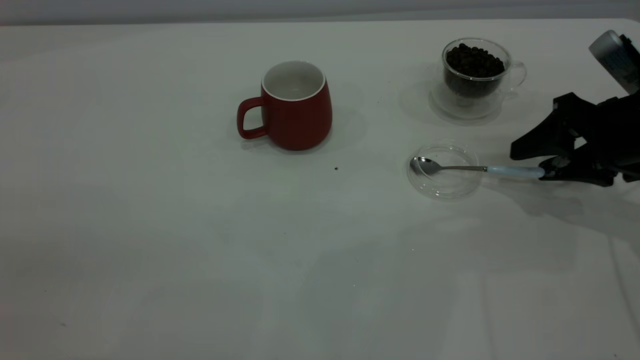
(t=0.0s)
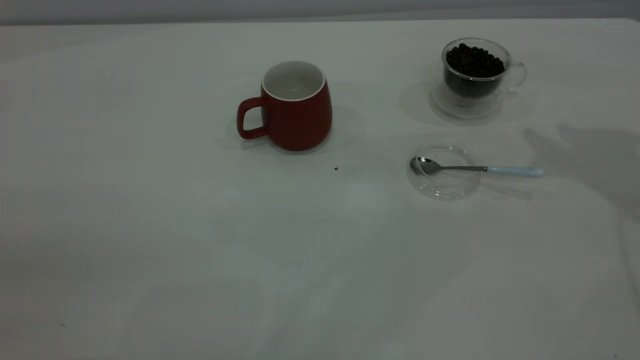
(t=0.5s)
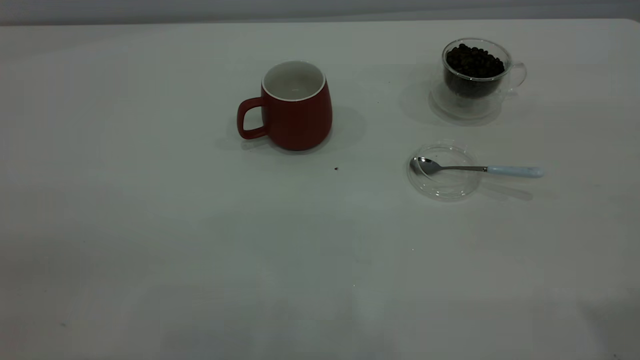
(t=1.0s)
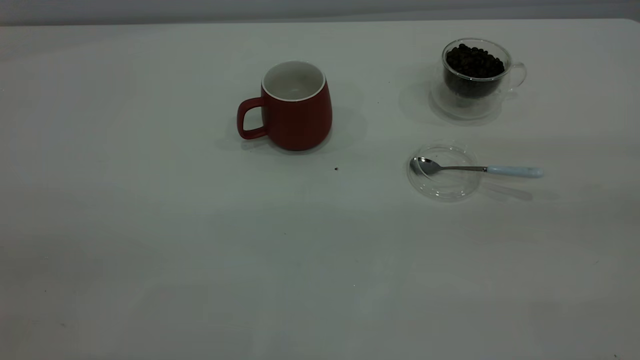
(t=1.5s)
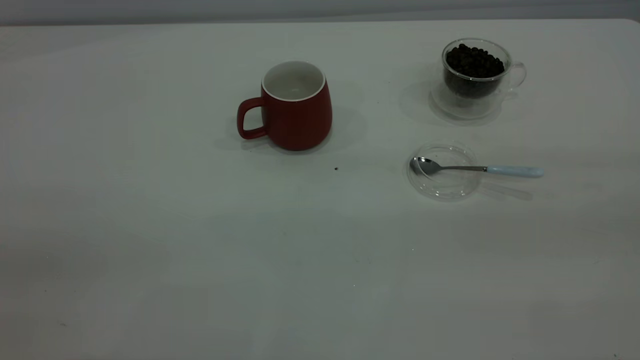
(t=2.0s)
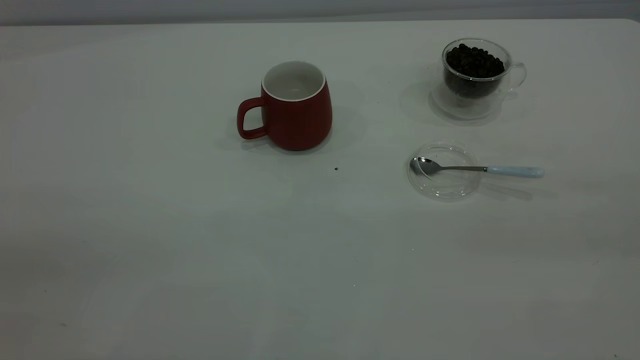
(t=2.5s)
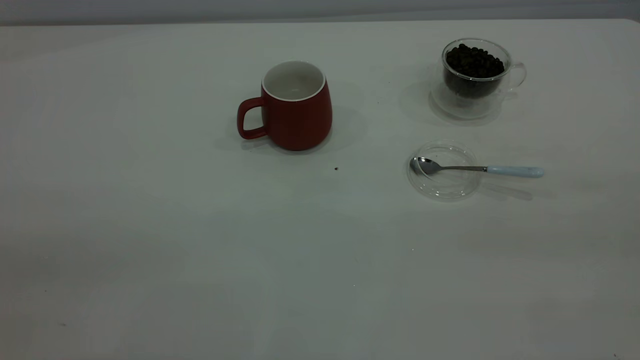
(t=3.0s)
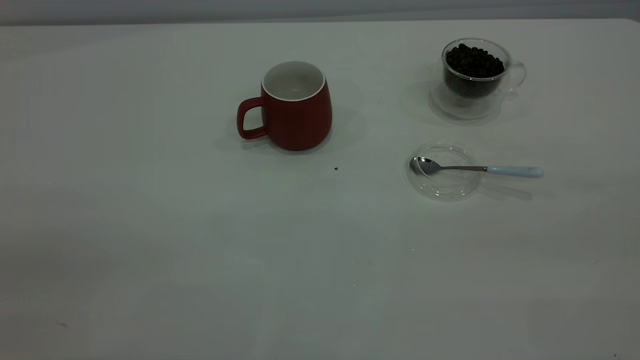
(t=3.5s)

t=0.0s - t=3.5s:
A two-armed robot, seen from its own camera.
Task of the whole recording: the left gripper place the red cup in the center of the table, the right gripper take the blue spoon from the cup lid and scoop out the coffee beans from the coffee cup and put them into the red cup, the right gripper put the spoon back into the cup lid.
t=0.0s - t=2.0s: The right gripper moves backward and upward, roughly 40 cm.

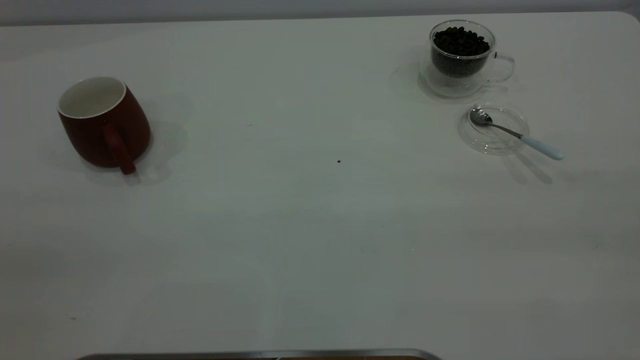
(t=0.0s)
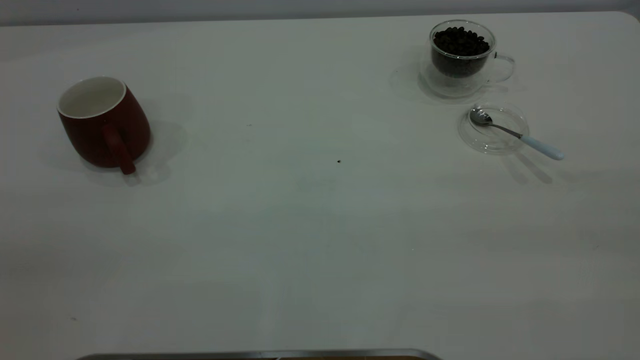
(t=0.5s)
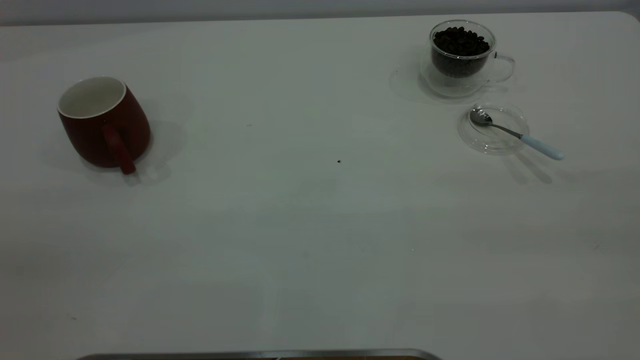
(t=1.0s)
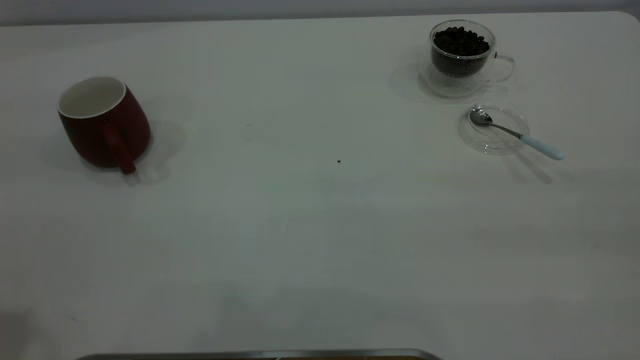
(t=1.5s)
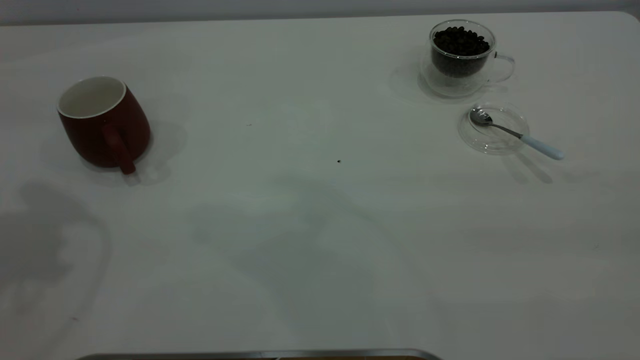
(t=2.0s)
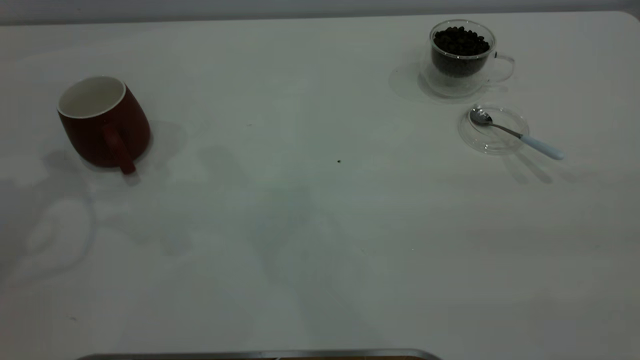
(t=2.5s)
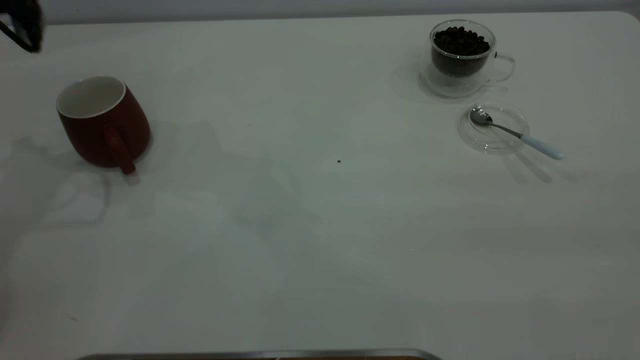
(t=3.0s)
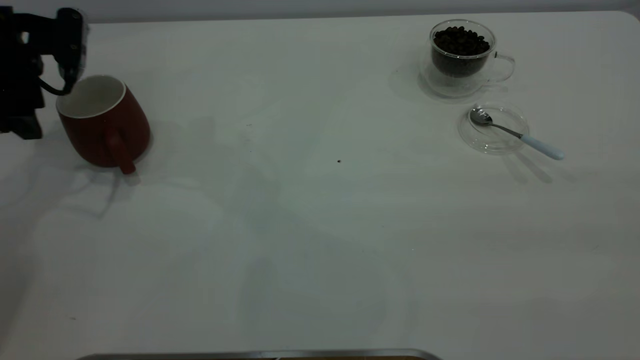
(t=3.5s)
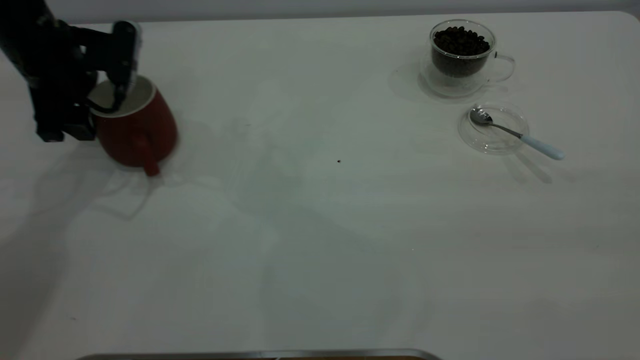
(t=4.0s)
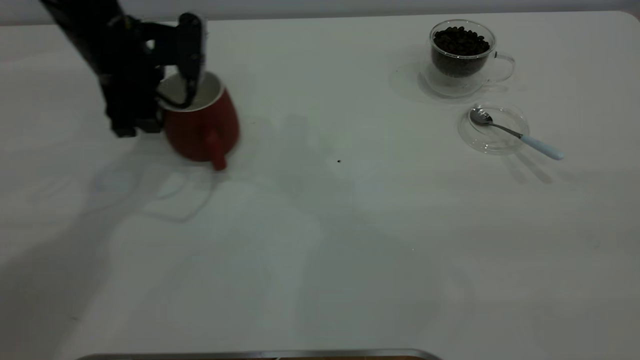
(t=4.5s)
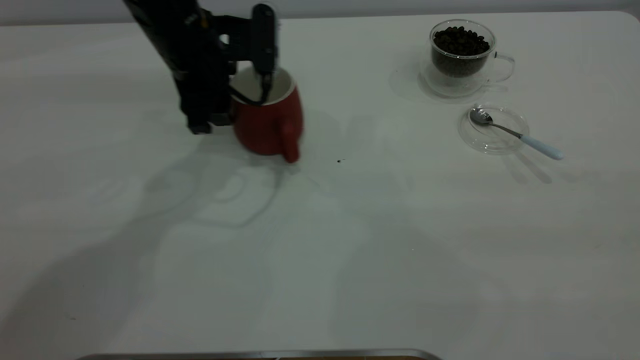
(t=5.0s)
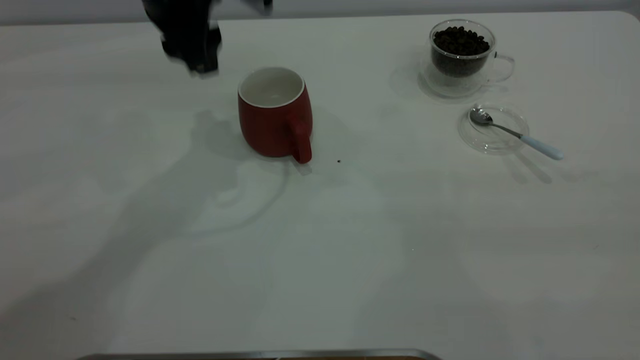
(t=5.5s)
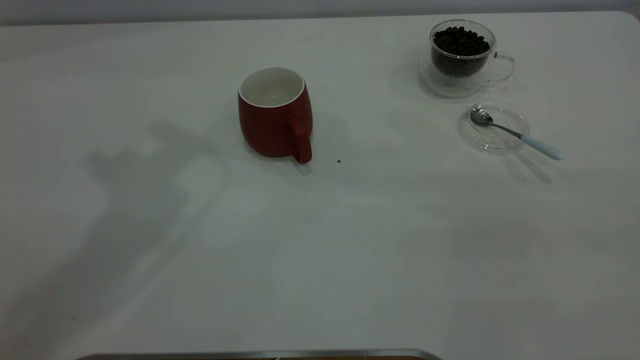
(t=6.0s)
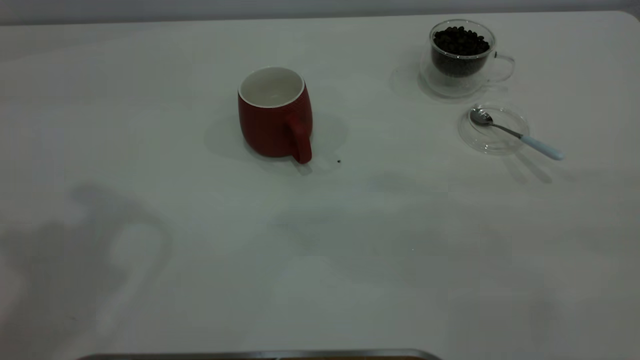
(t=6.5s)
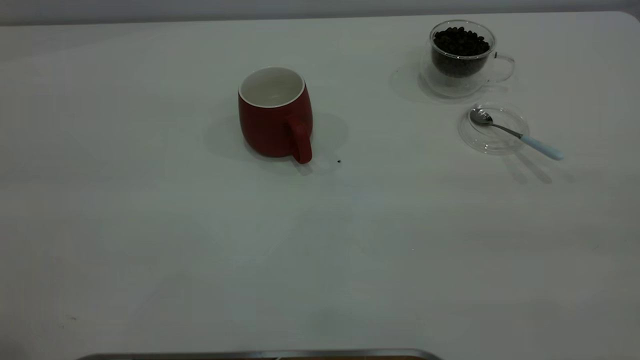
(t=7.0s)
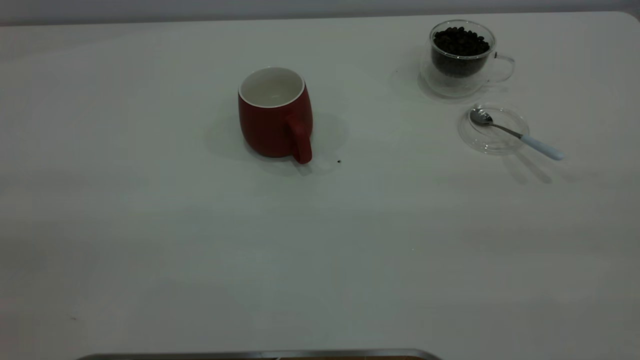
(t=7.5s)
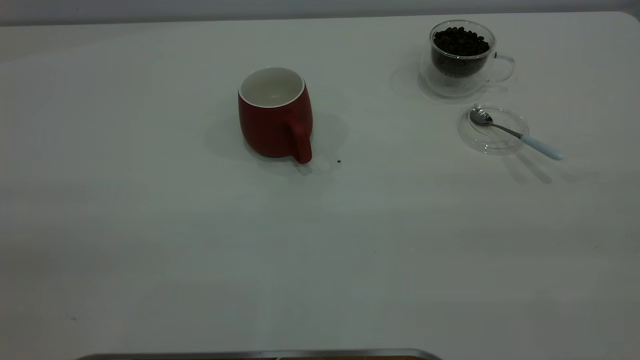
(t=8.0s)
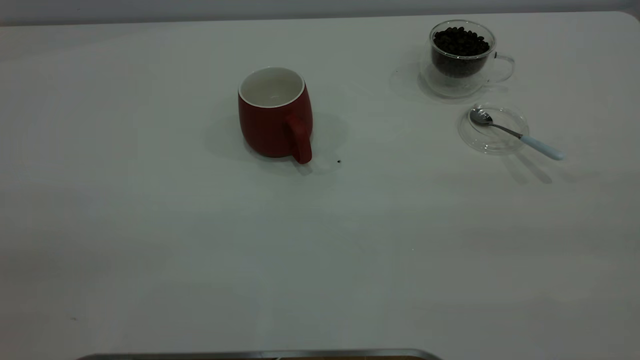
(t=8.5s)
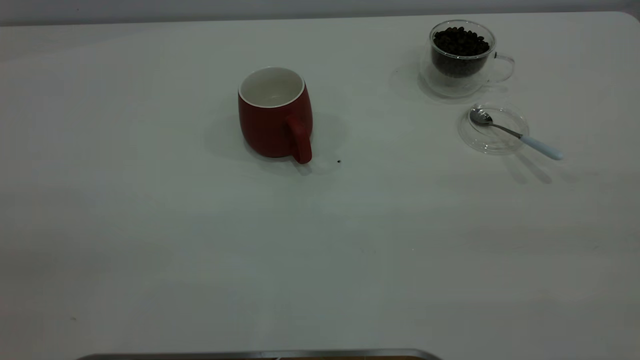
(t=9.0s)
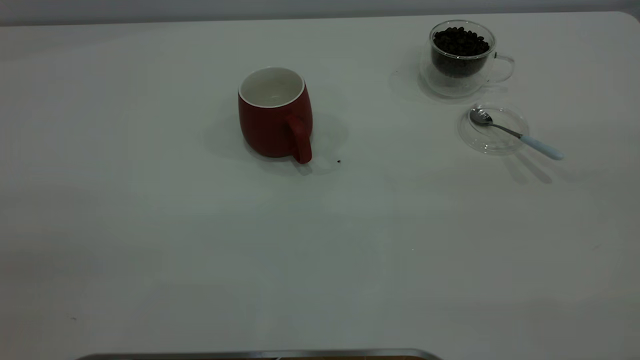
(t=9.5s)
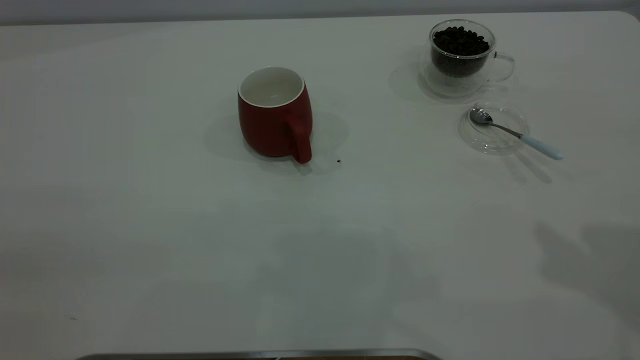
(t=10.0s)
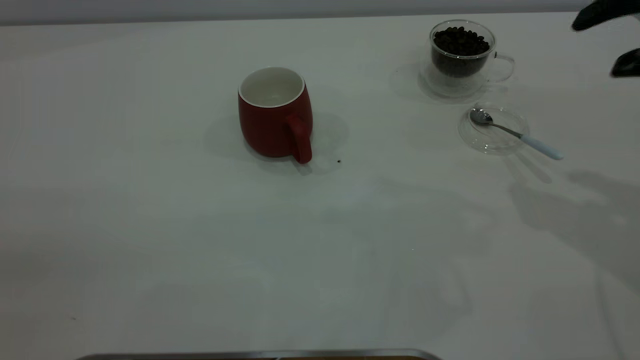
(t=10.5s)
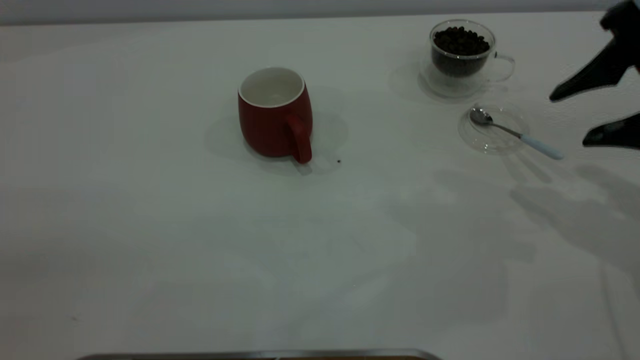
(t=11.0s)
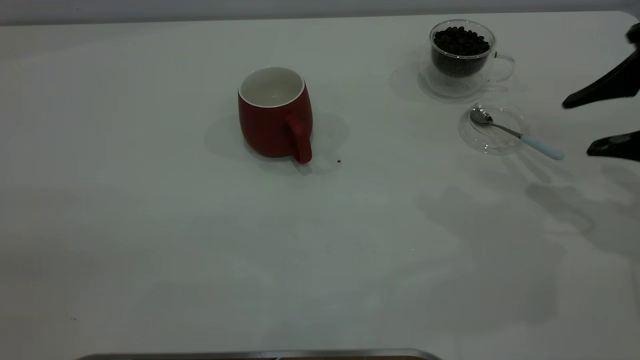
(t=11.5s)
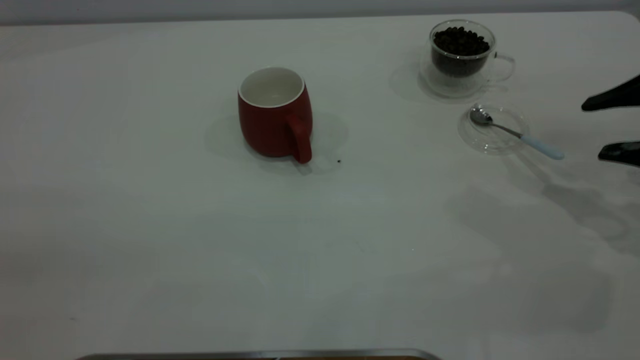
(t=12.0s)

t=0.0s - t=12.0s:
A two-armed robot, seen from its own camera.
Task of the whole recording: the left gripper place the red cup in the center of the table, the right gripper take the blue spoon from the cup lid and scoop out the coffee beans from the coffee cup and put them into the red cup, the right gripper put the spoon back into the cup lid.
Step, t=0.0s - t=5.0s: Move the cup to the center of view.
t=2.0s - t=4.0s: The left gripper travels downward and forward by some 25 cm.
t=4.0s - t=6.0s: The left gripper goes some 25 cm upward.
t=10.0s - t=12.0s: The right gripper heads downward, covering approximately 20 cm.

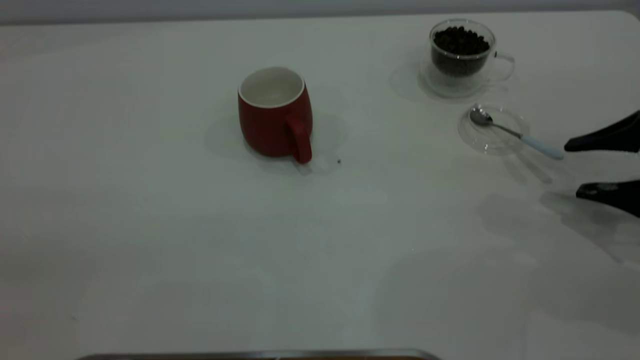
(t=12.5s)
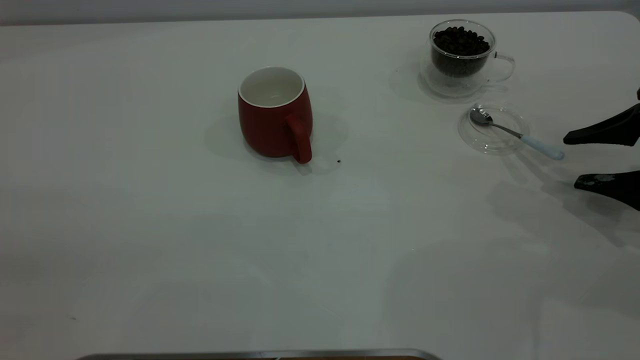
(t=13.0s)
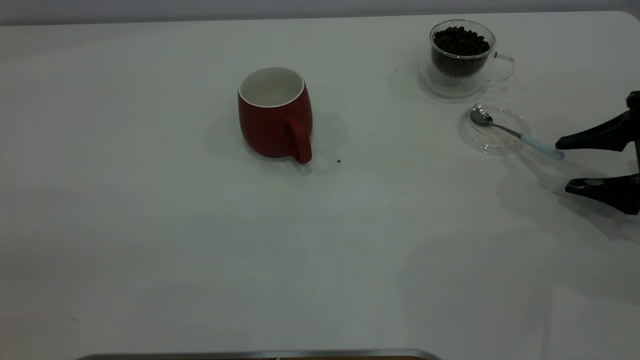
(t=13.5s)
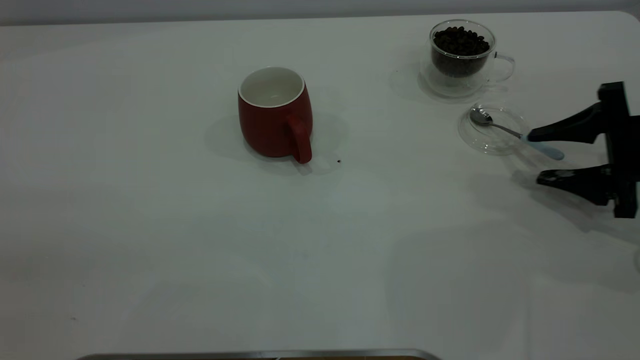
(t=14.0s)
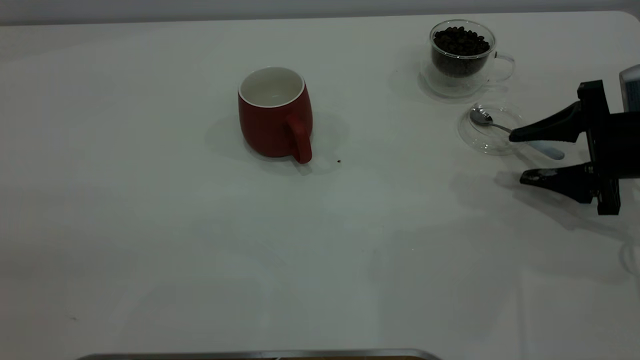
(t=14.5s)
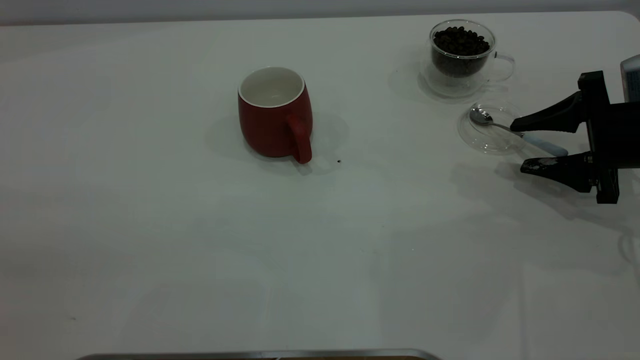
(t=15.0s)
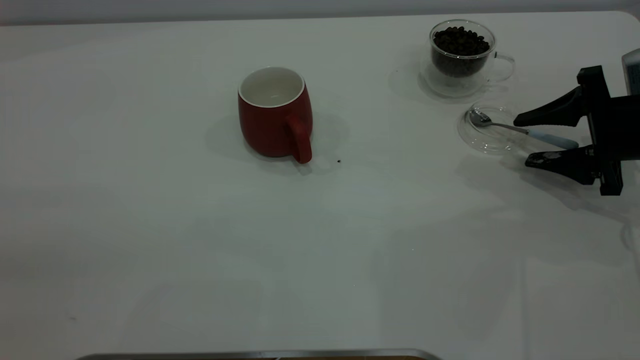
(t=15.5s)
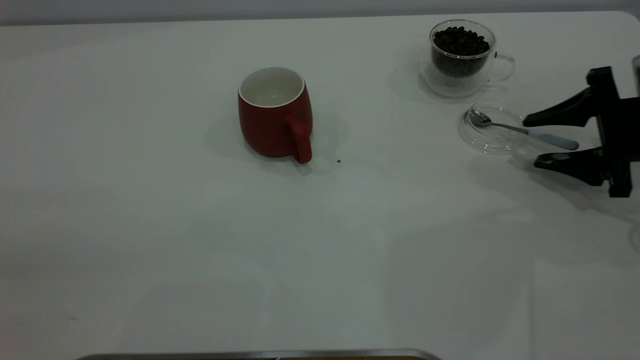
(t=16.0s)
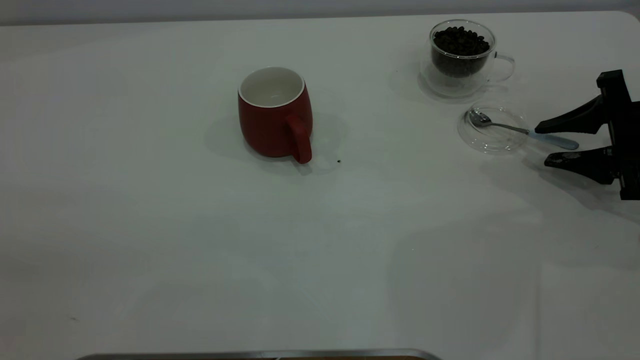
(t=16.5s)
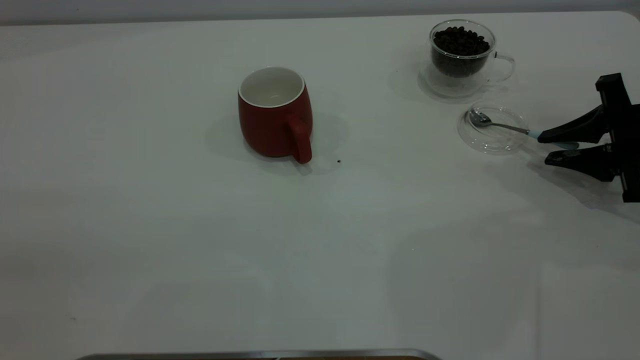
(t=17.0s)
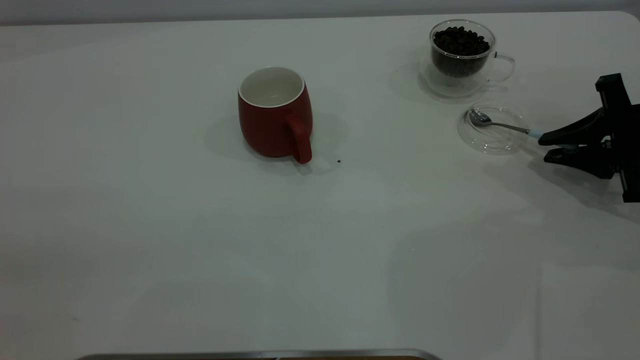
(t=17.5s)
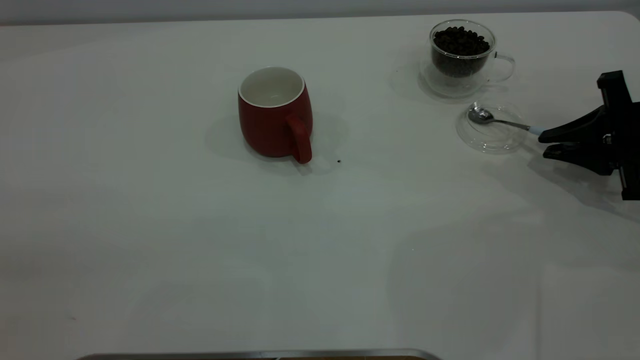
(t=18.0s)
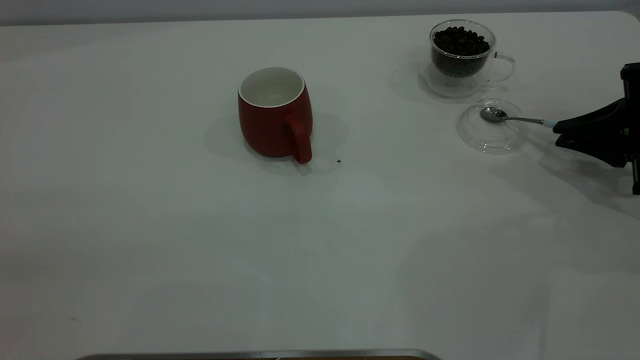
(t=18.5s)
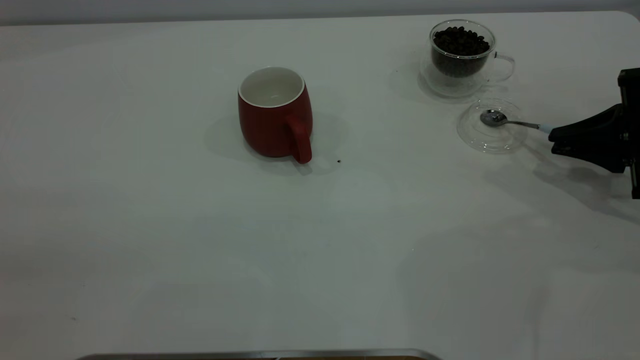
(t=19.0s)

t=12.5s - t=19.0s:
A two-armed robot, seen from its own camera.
Task of the whole recording: the left gripper place the red cup in the center of the table, the right gripper take the blue spoon from the cup lid and scoop out the coffee beans from the coffee cup and put them into the red cup, the right gripper put the spoon back into the cup lid.
t=12.5s - t=14.5s: The right gripper changes place by approximately 5 cm.
t=14.5s - t=17.0s: The right gripper closes up.
t=17.0s - t=19.0s: The right gripper closes its fingers.
